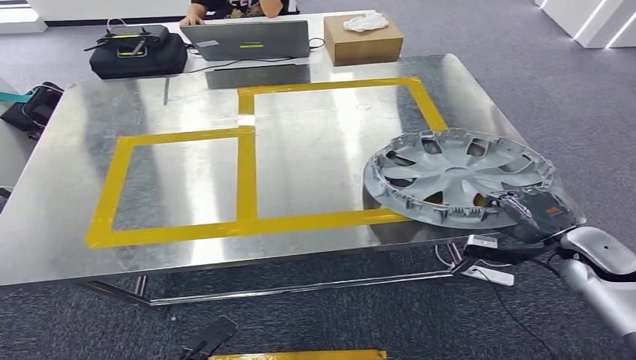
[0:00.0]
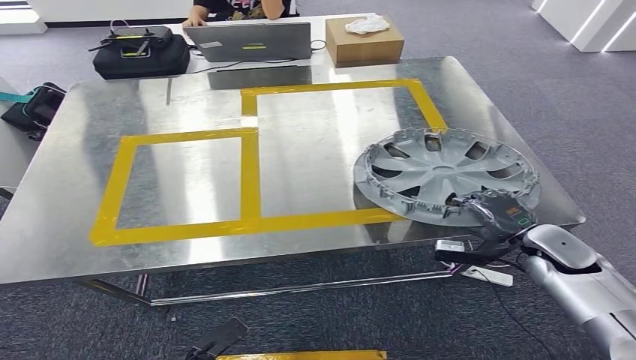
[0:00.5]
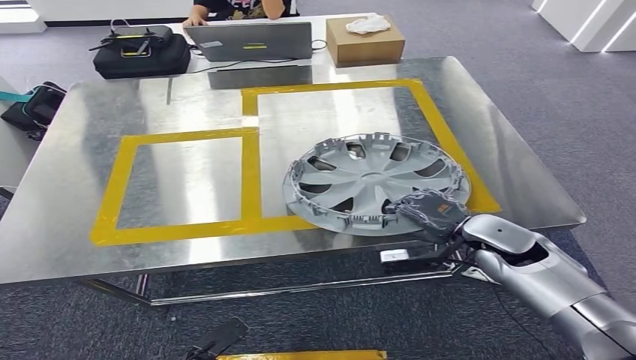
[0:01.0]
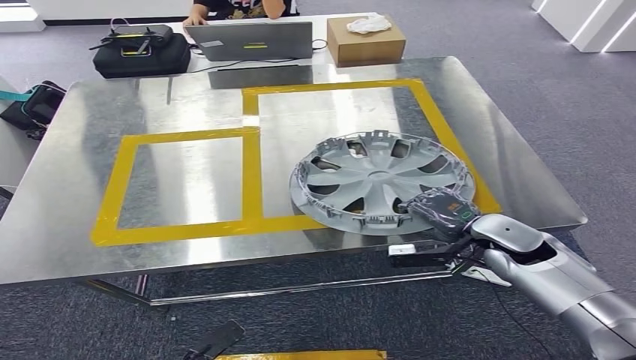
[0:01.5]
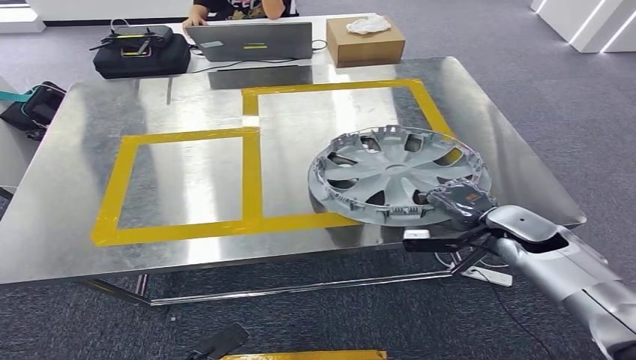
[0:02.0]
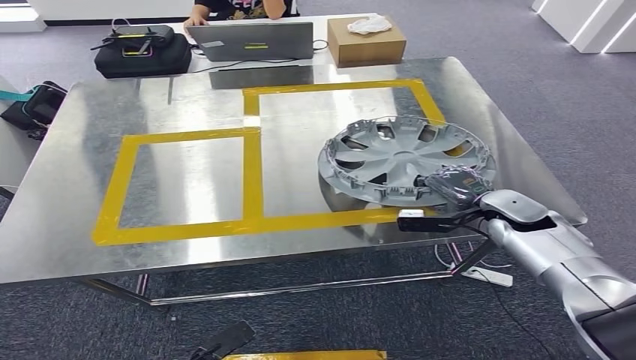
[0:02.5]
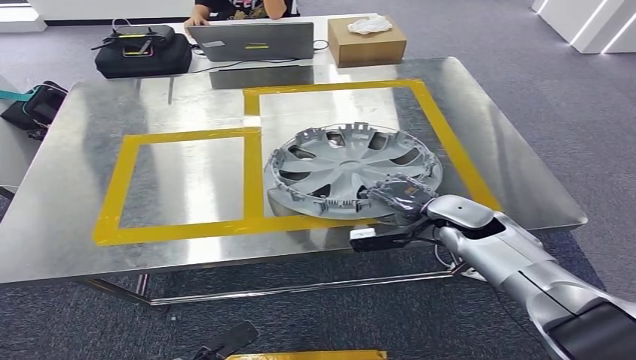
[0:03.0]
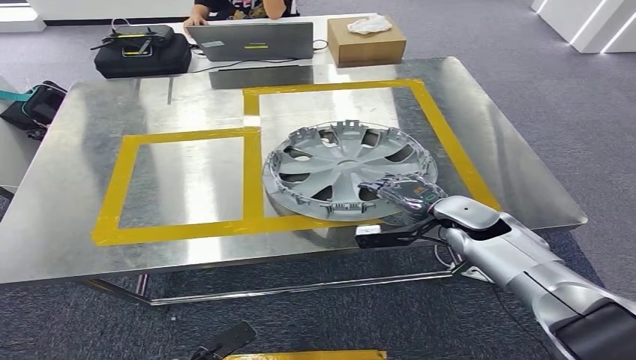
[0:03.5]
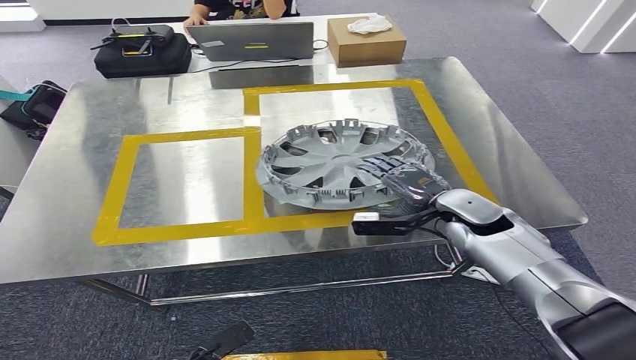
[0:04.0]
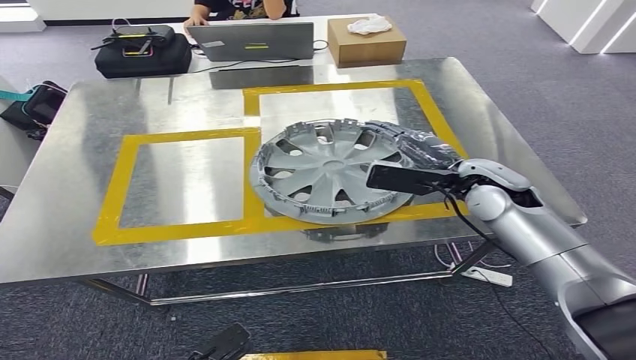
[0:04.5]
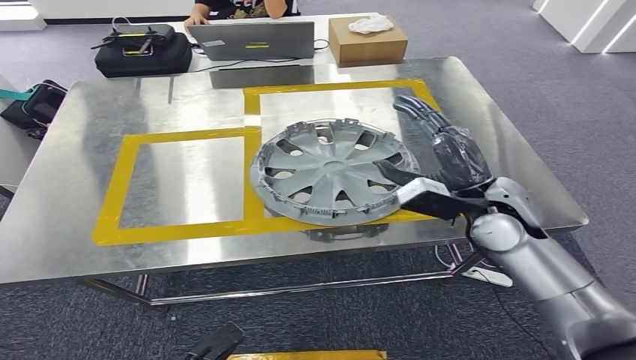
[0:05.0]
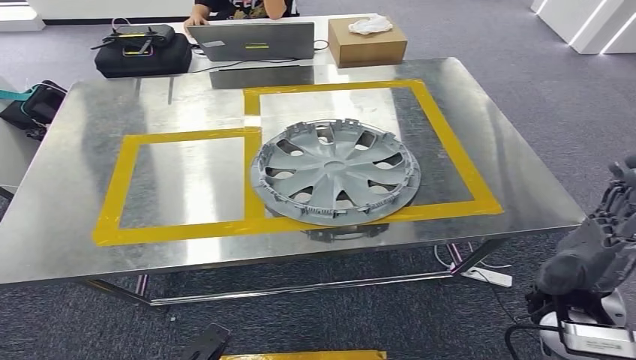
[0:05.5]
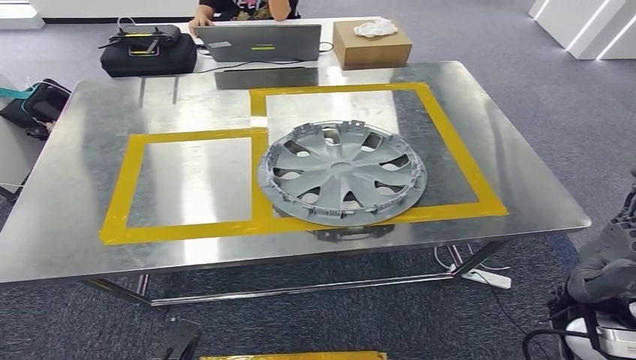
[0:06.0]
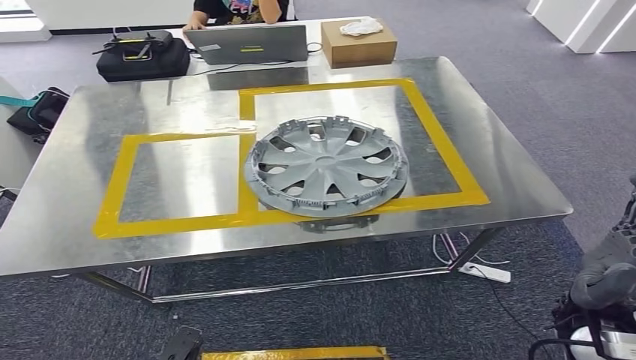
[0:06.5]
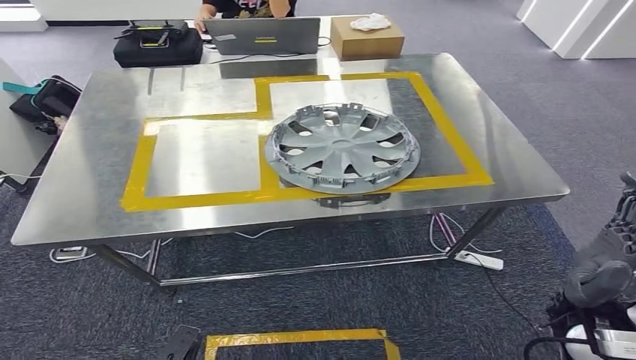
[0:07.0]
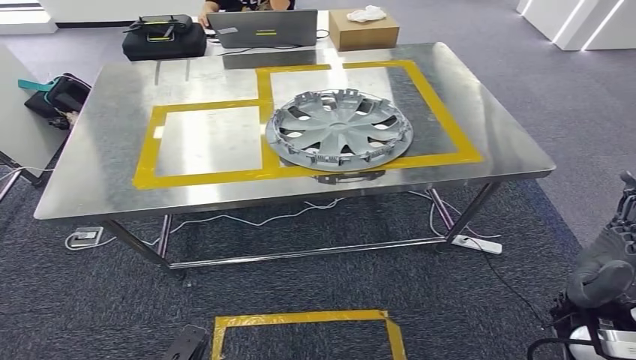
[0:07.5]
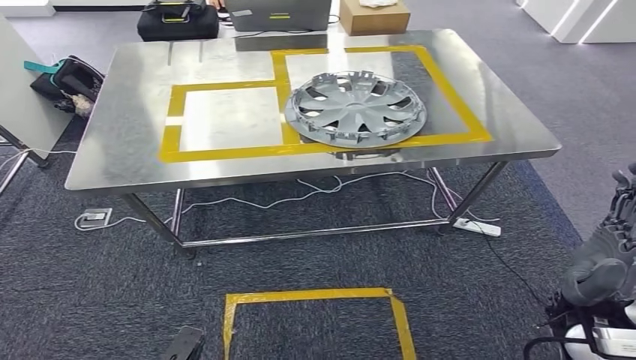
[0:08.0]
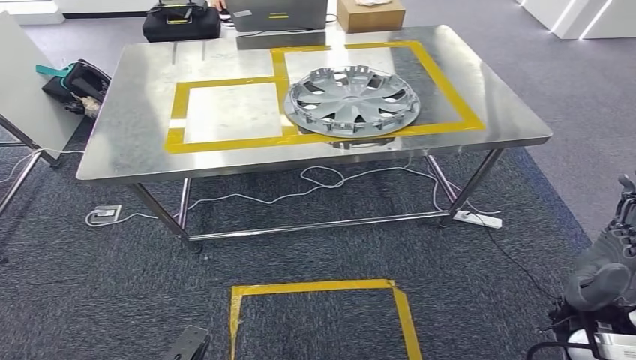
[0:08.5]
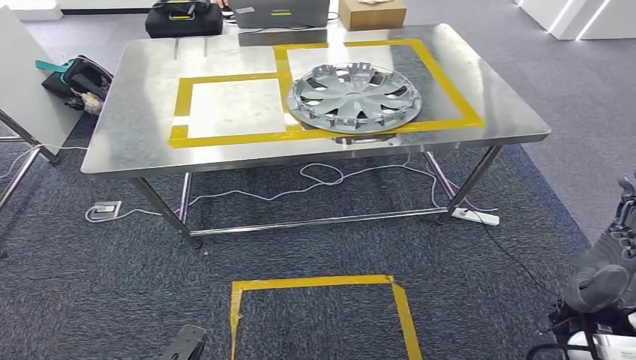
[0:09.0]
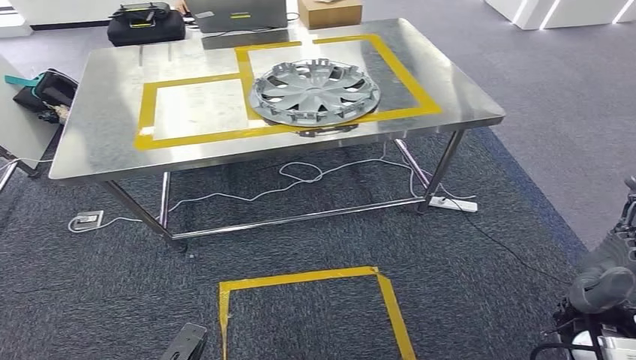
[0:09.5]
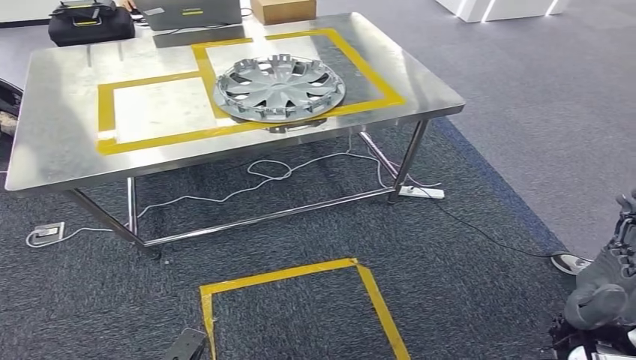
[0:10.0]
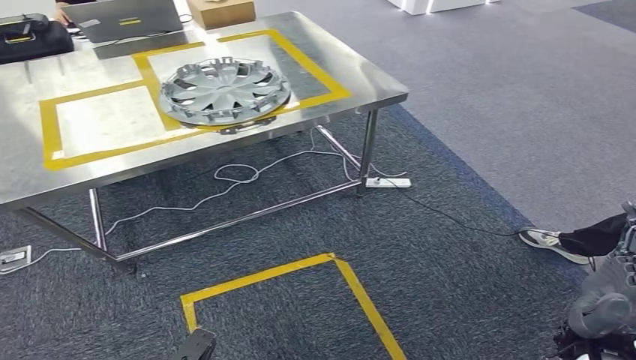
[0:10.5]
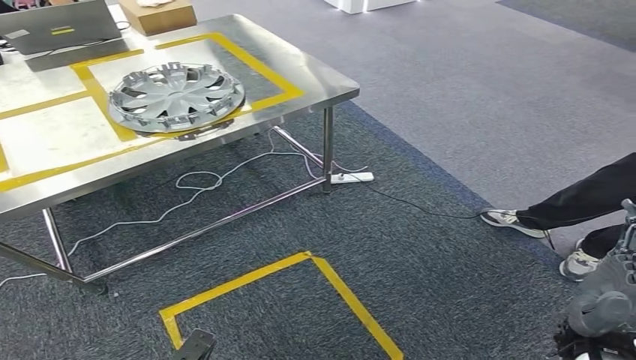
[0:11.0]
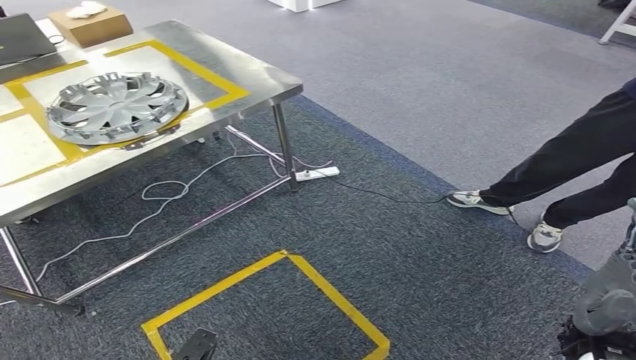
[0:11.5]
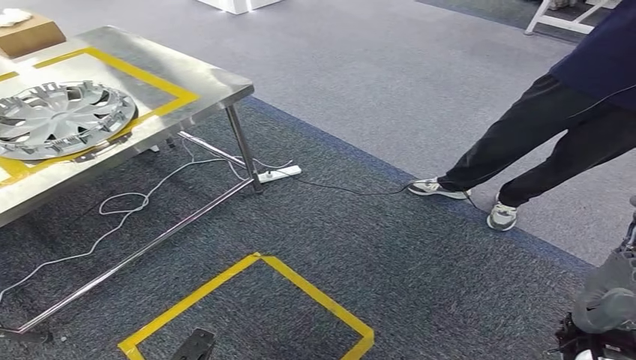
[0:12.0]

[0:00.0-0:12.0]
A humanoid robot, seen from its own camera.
Step, 0:00.0 to 0:05.5: Insert the small parts into the corresponding holes on the workbench.
0:00.0 to 0:02.0: The right hand is displaced to the left and forward by approximately 10 cm.
0:02.0 to 0:04.0: The right hand is displaced to the left by roughly 10 cm.

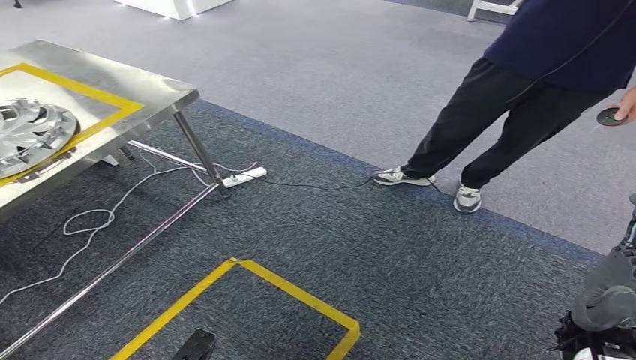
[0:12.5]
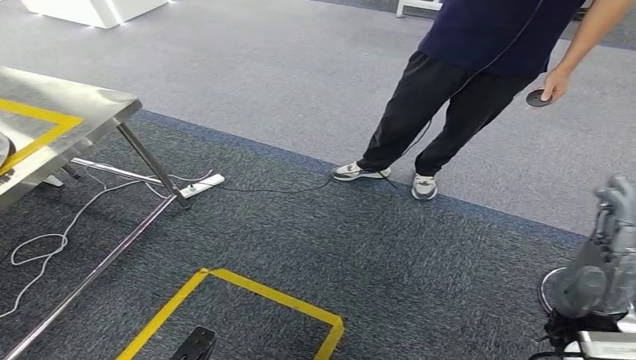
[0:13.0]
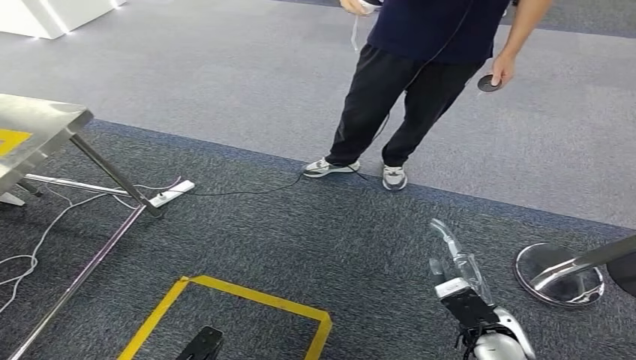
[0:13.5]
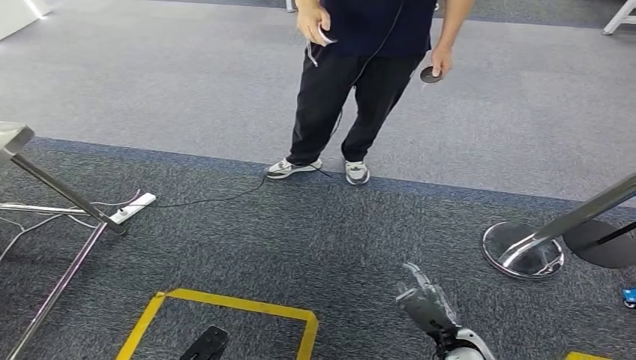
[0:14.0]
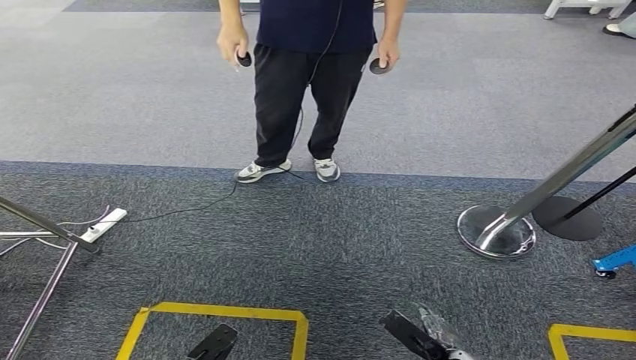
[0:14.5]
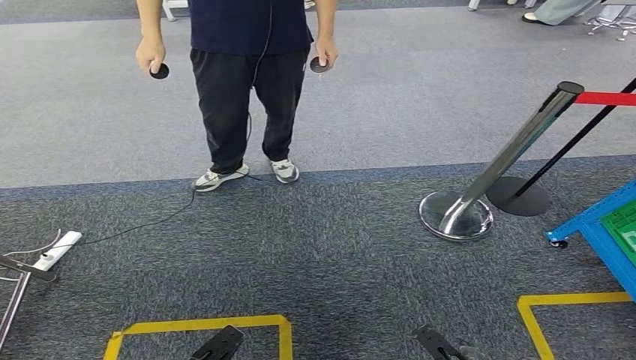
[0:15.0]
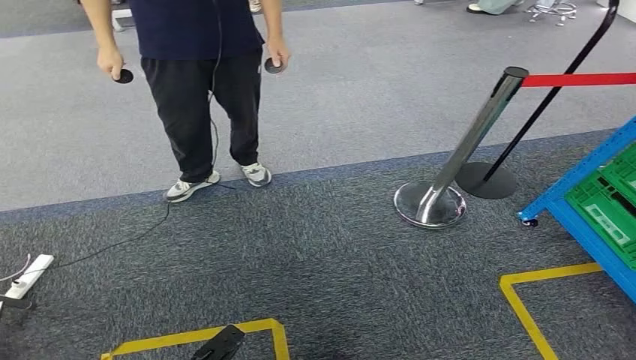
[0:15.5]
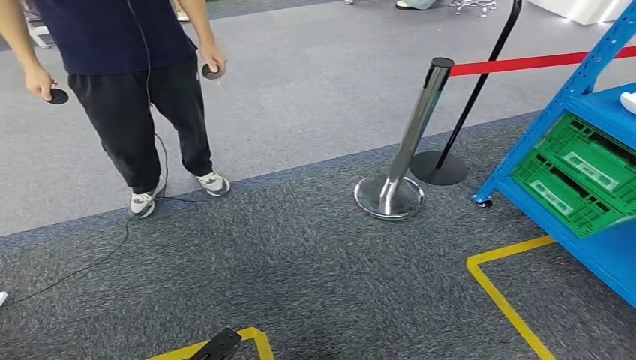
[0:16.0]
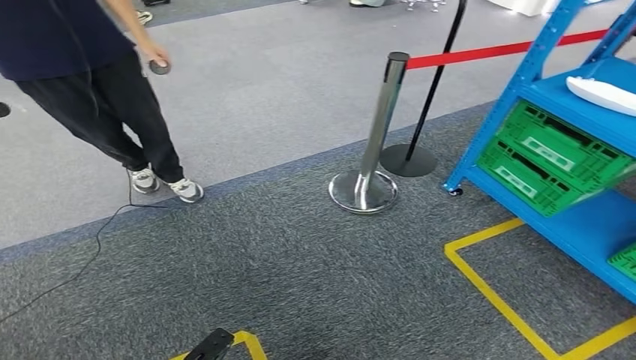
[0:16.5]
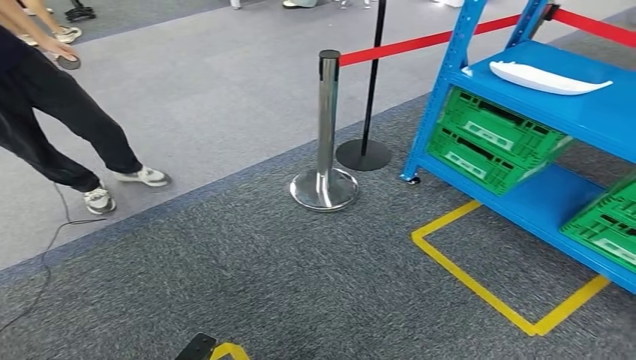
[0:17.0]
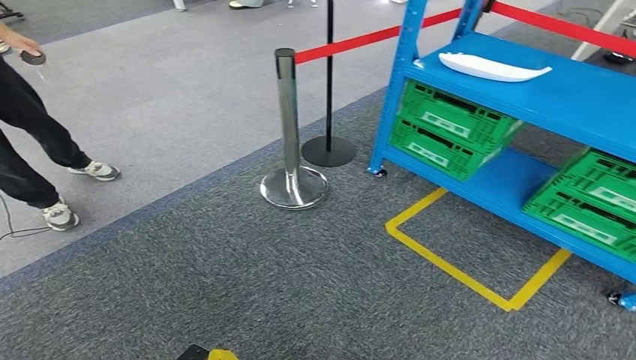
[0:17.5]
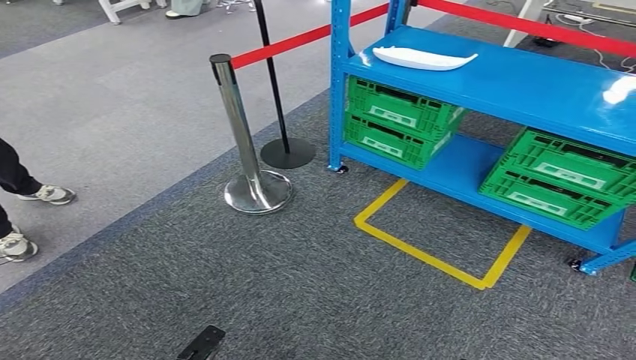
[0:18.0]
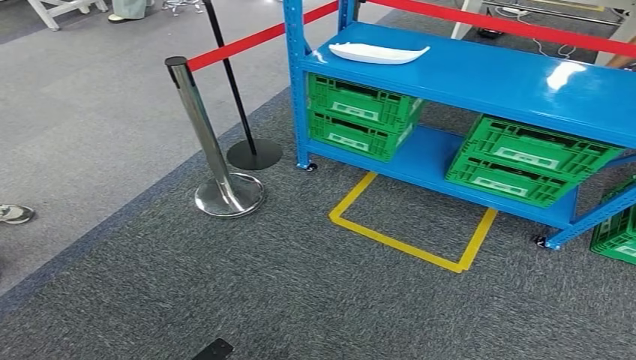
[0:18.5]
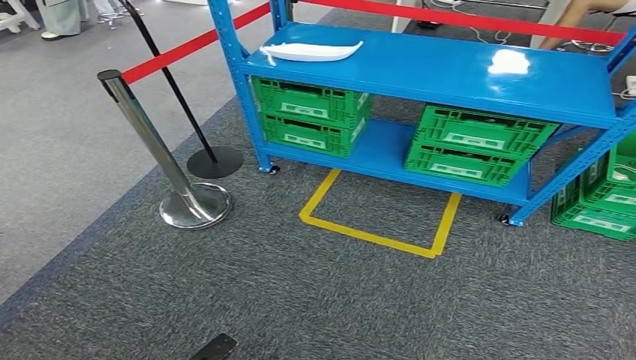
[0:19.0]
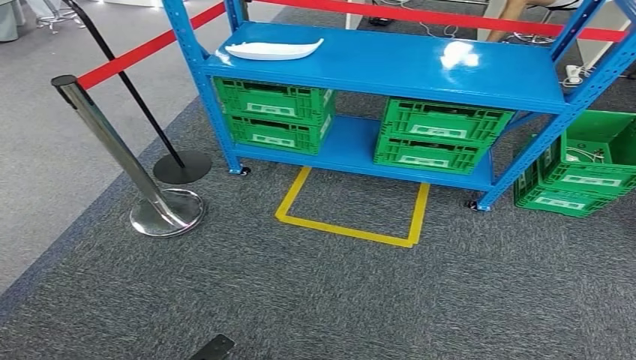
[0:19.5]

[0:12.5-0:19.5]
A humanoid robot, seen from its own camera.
Step, 0:12.5 to 0:19.5: Move to the initial position at the workbench.

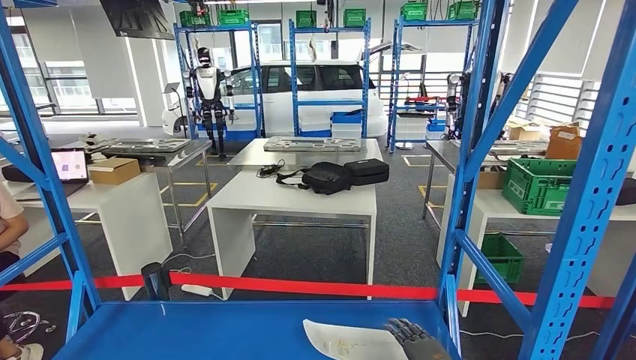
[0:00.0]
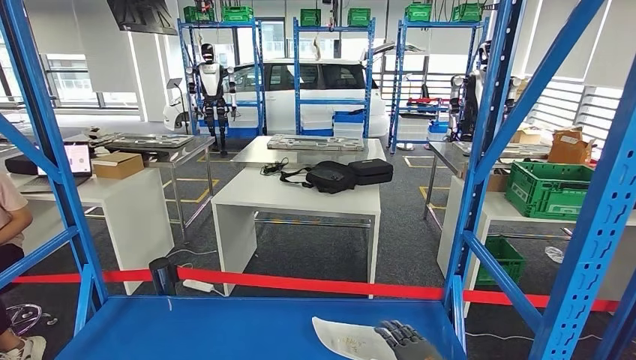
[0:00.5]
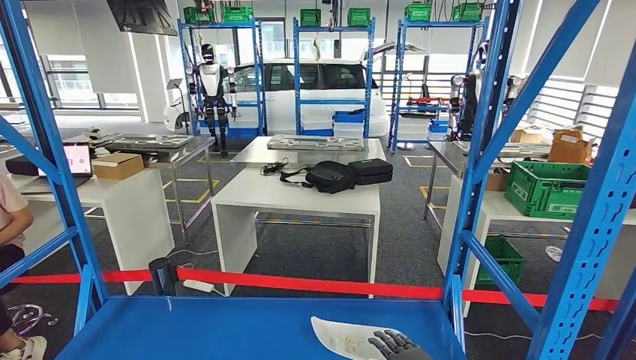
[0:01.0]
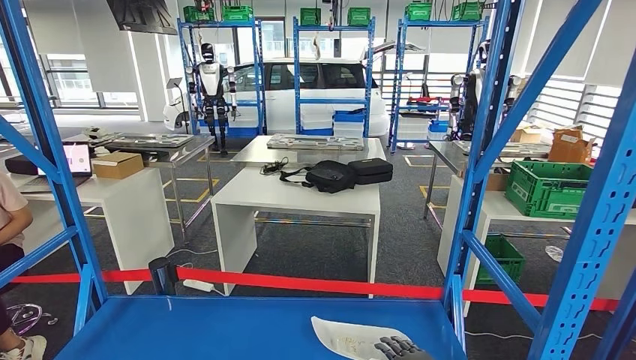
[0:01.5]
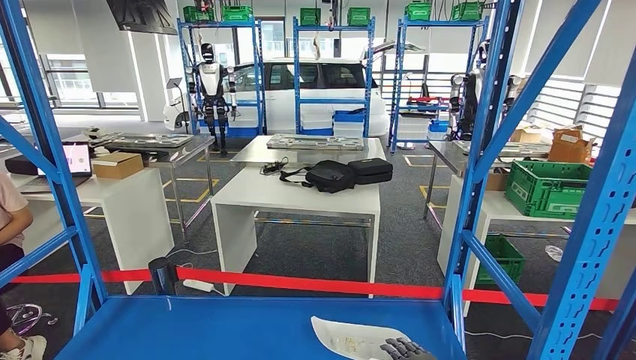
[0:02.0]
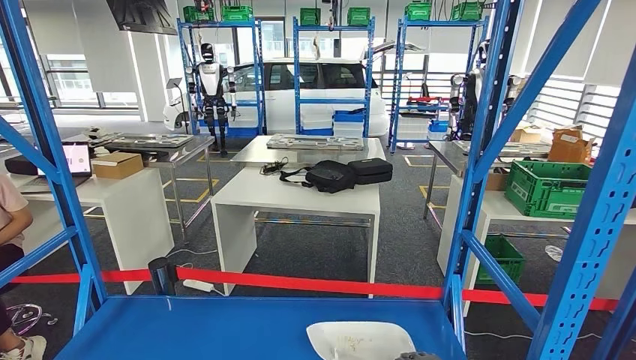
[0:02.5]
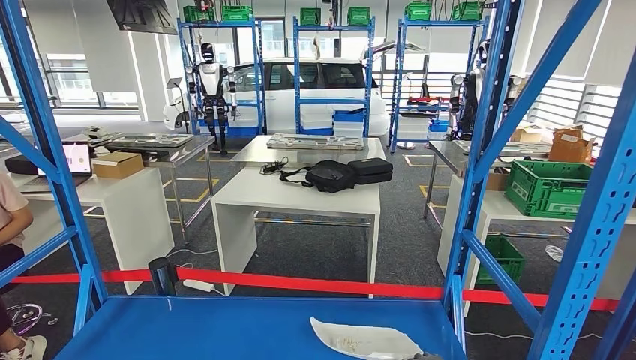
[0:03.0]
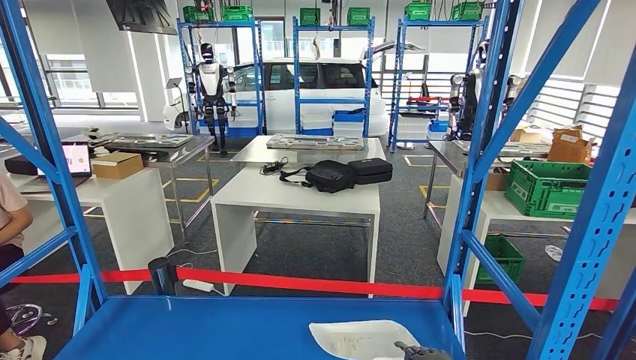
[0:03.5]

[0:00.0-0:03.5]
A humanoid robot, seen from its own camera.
0:02.0 to 0:03.5: The hands make only small movements.
